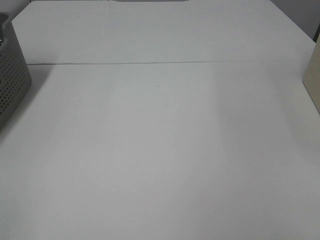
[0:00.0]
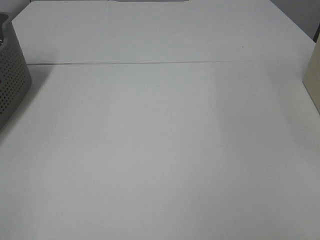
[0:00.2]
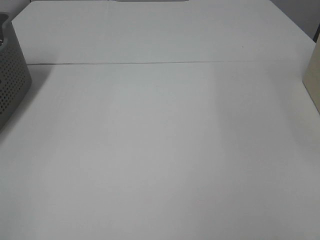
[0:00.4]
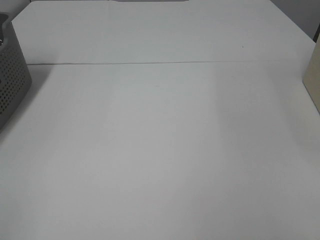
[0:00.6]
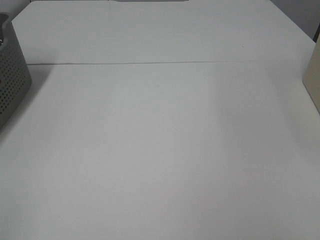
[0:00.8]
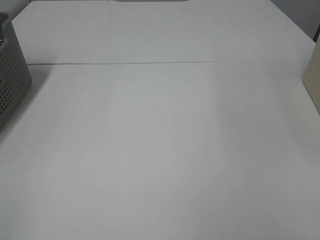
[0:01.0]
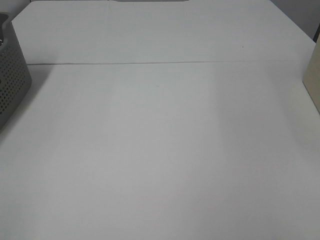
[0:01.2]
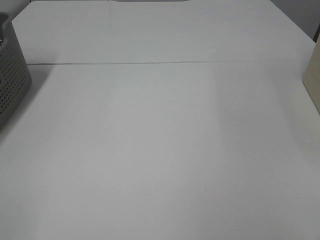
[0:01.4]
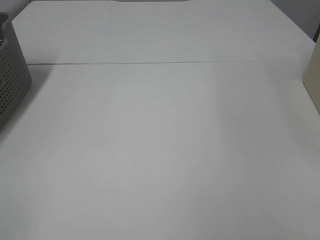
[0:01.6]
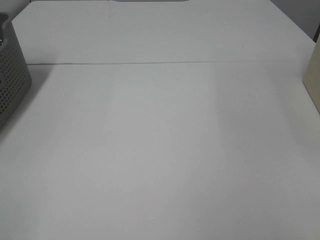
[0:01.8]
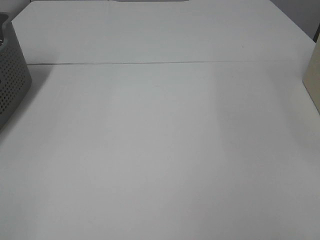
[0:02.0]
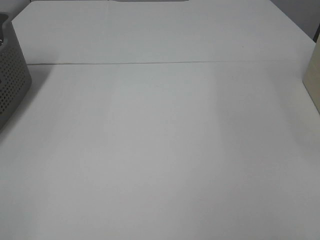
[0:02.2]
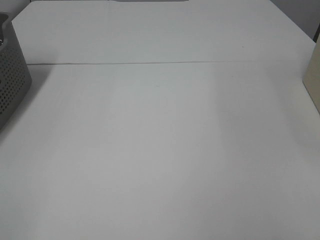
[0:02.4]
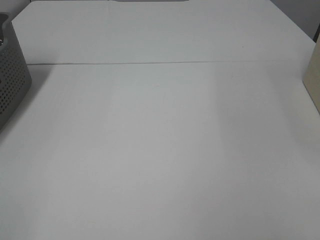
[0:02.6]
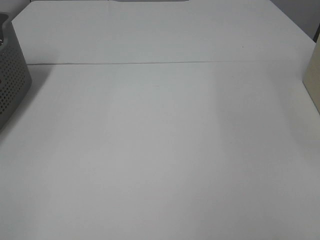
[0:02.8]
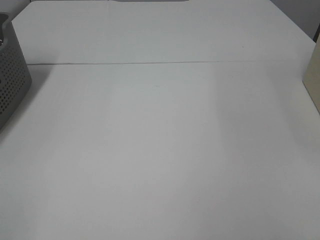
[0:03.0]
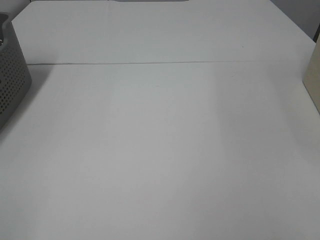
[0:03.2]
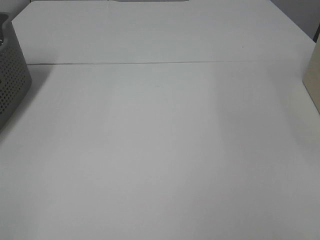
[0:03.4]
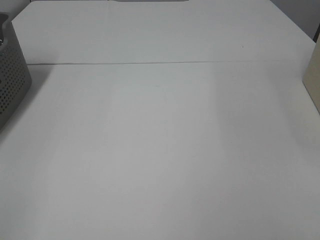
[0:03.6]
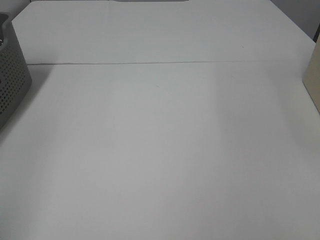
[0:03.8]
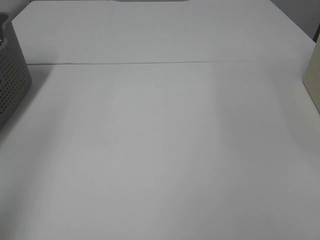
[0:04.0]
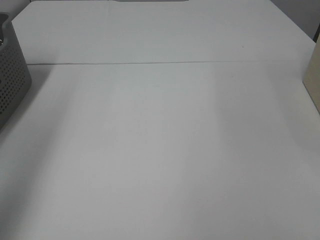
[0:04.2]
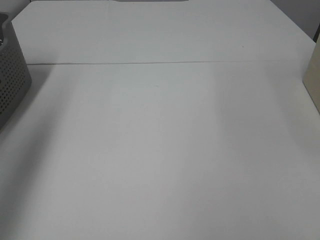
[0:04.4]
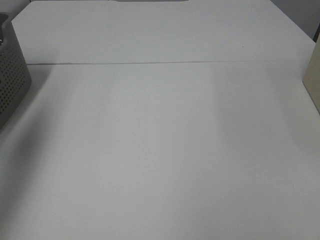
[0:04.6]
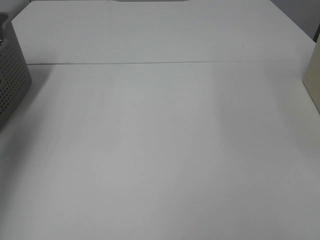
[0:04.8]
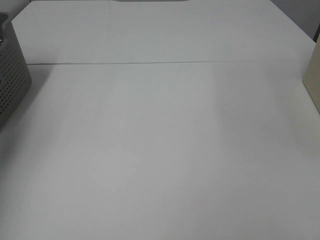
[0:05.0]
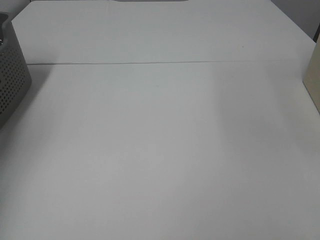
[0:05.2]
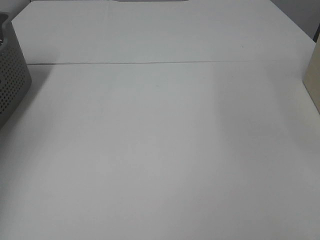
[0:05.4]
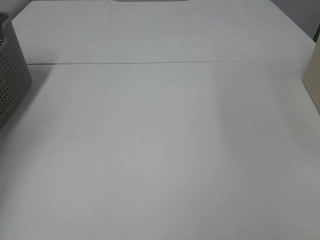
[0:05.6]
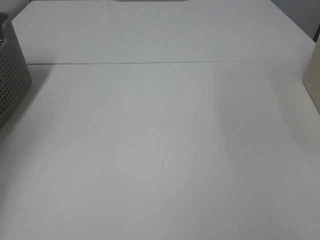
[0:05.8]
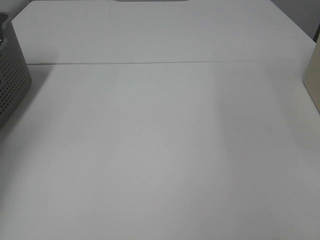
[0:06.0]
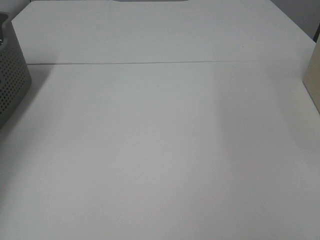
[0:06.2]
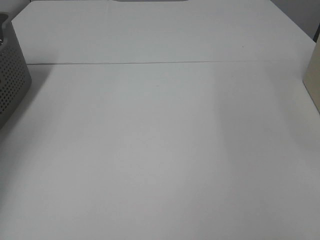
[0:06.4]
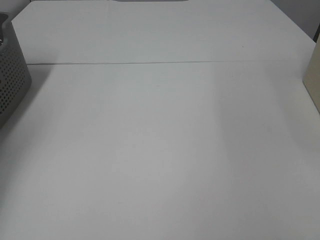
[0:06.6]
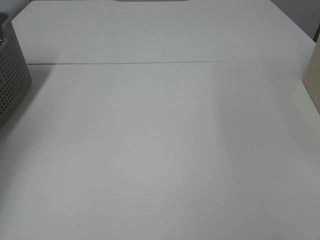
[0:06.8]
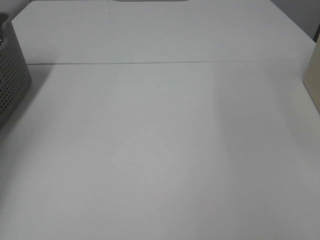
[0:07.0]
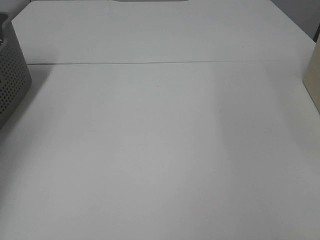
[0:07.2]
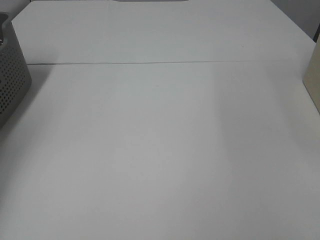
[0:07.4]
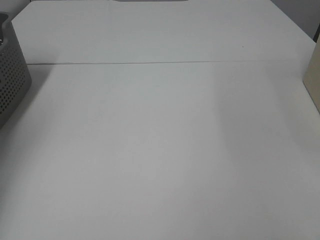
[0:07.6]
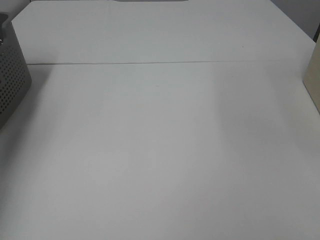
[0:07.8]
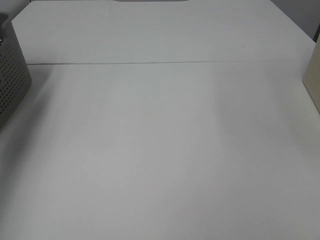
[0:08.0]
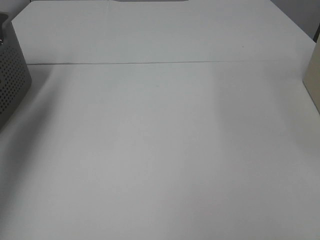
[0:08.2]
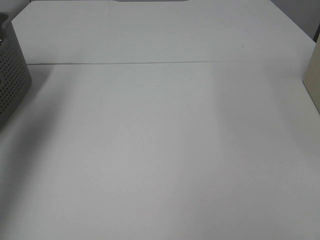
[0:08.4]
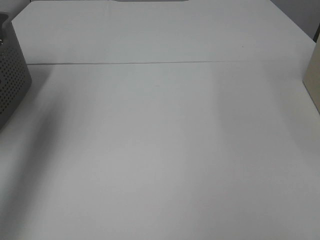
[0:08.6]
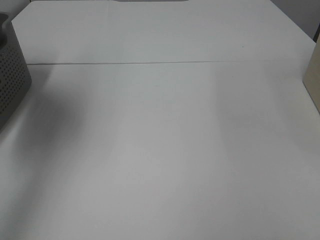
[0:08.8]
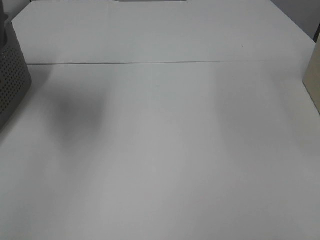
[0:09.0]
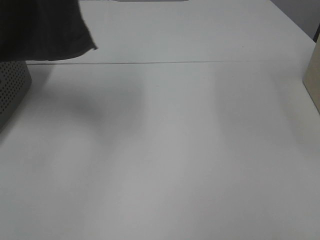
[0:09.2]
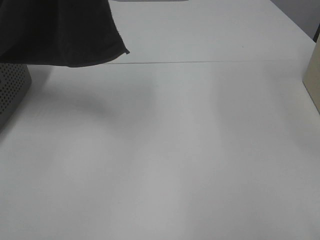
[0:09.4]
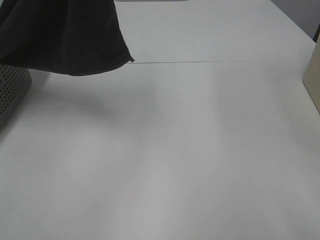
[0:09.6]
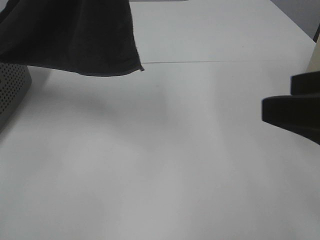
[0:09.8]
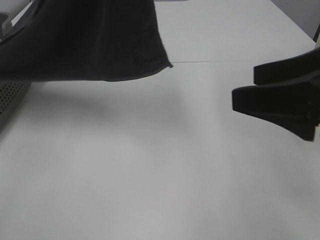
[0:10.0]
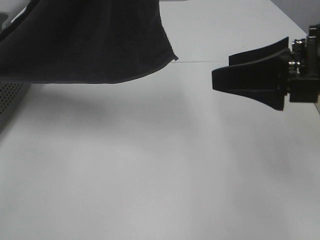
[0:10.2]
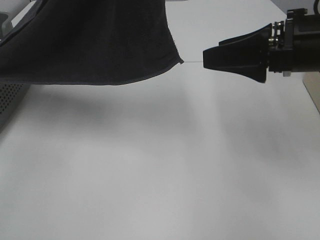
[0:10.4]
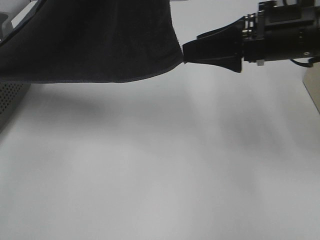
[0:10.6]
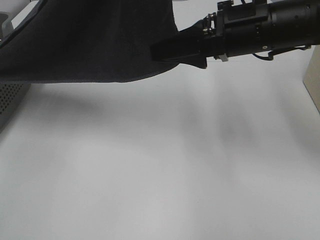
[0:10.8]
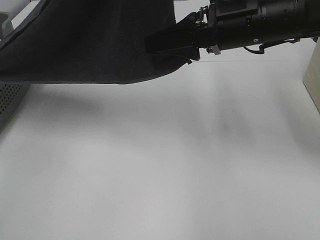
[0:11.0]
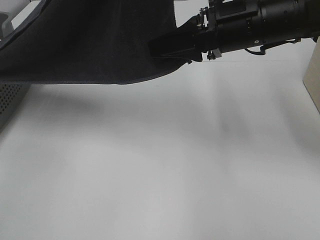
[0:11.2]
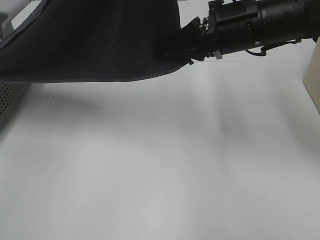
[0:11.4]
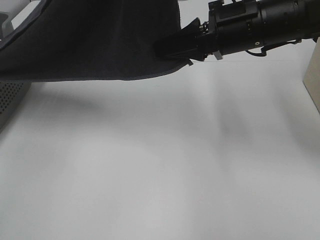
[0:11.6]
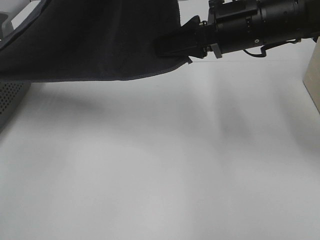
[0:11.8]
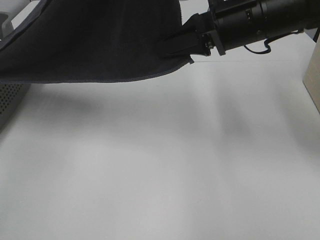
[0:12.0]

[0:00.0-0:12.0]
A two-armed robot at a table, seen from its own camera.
Task of the whole recording: Remove the towel and place it.
0:00.0 to 0:03.0: Both grippers stay put.
0:03.0 to 0:04.4: The left gripper moves forward and upward, some 25 cm.
0:04.4 to 0:06.0: The left gripper goes about 30 cm downward, forward and to the left.
0:07.6 to 0:09.0: The left gripper heads upward, to the right and backward, covering some 40 cm.
0:09.0 to 0:10.4: The right gripper moves forward, about 25 cm. The left gripper moves to the right, approximately 15 cm.
0:10.4 to 0:12.0: The right gripper moves forward and to the left, roughly 10 cm, and closes up.

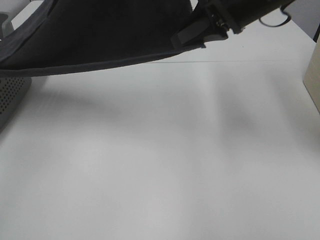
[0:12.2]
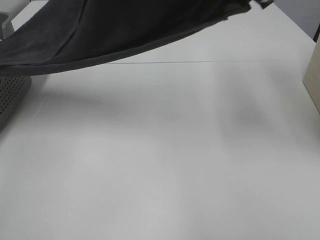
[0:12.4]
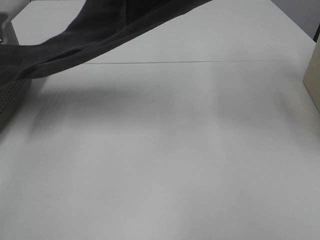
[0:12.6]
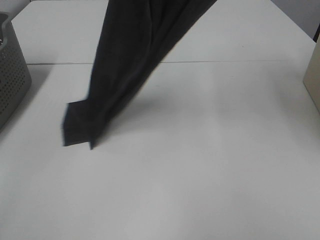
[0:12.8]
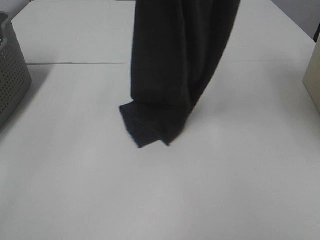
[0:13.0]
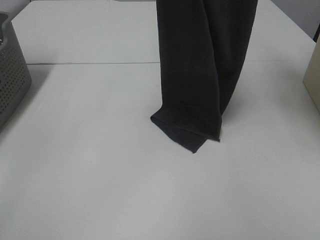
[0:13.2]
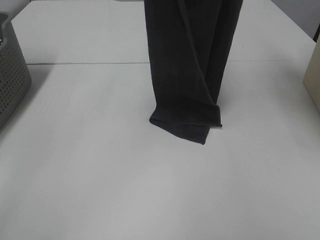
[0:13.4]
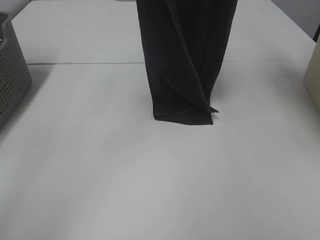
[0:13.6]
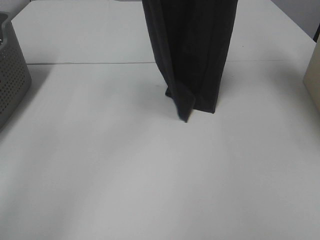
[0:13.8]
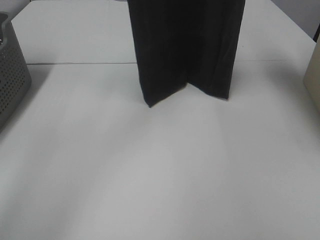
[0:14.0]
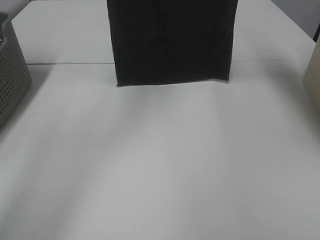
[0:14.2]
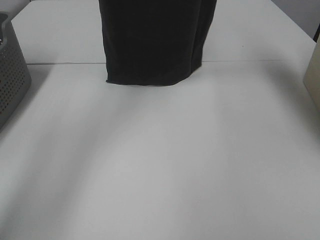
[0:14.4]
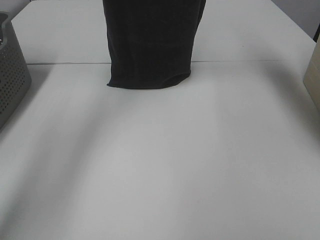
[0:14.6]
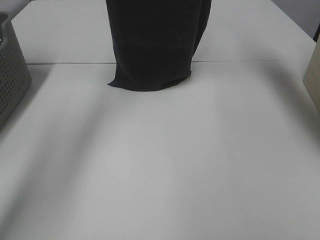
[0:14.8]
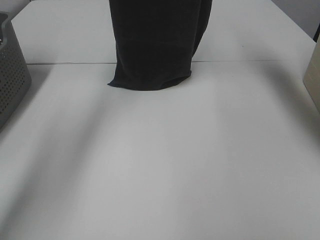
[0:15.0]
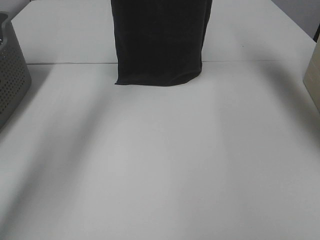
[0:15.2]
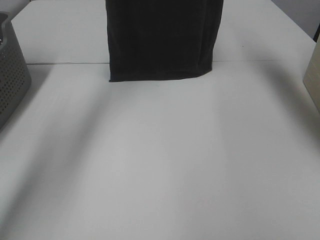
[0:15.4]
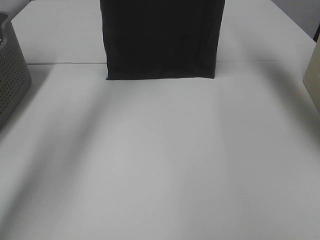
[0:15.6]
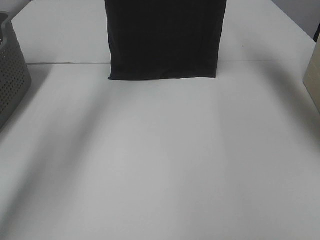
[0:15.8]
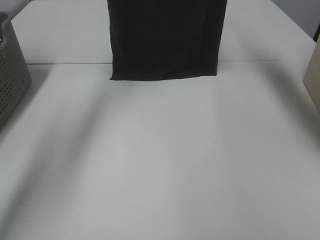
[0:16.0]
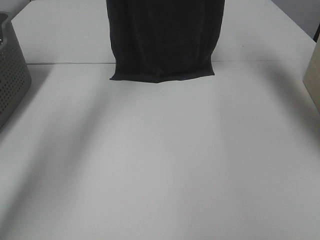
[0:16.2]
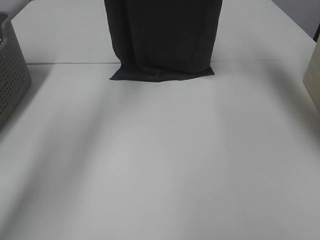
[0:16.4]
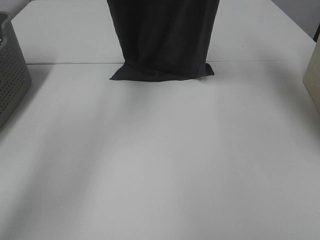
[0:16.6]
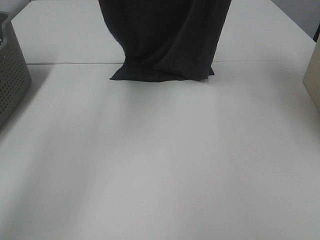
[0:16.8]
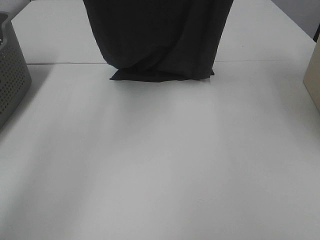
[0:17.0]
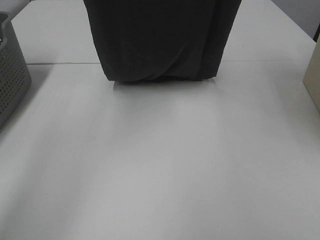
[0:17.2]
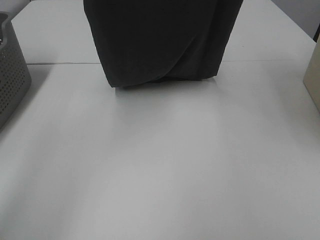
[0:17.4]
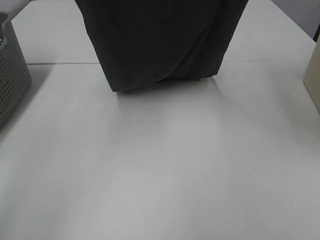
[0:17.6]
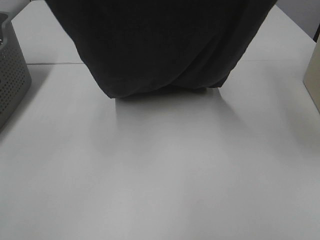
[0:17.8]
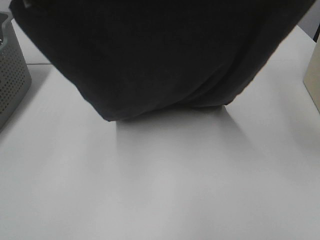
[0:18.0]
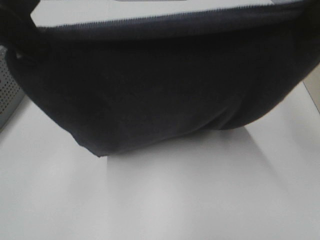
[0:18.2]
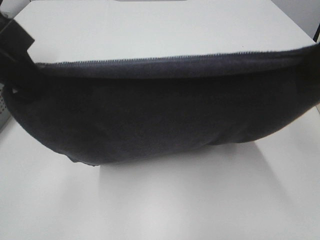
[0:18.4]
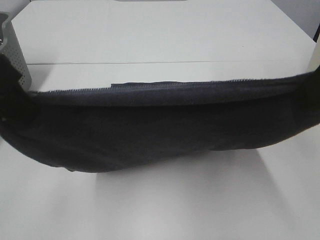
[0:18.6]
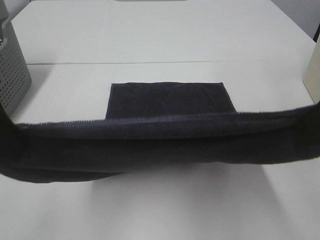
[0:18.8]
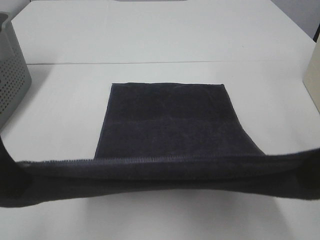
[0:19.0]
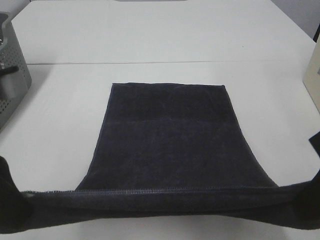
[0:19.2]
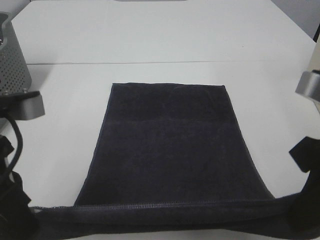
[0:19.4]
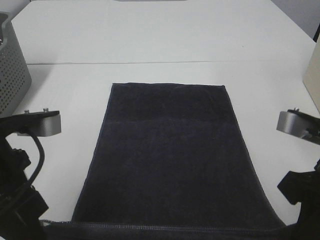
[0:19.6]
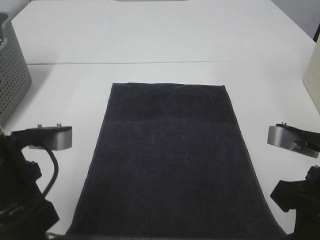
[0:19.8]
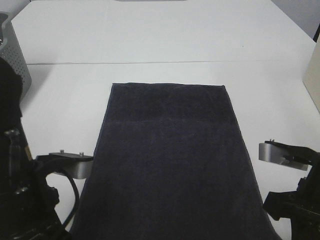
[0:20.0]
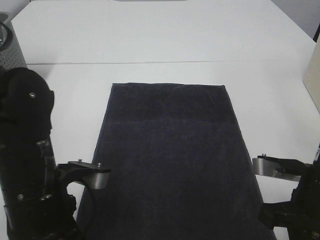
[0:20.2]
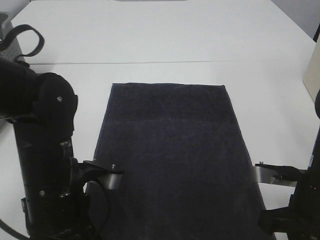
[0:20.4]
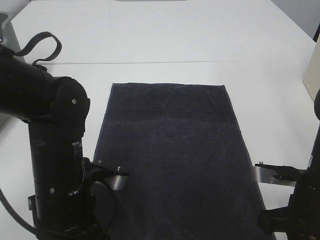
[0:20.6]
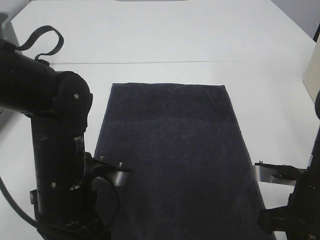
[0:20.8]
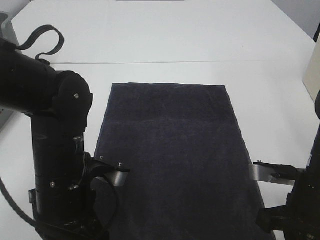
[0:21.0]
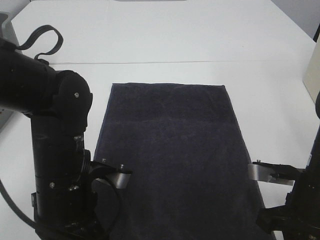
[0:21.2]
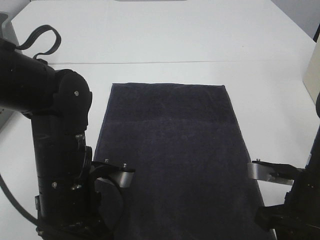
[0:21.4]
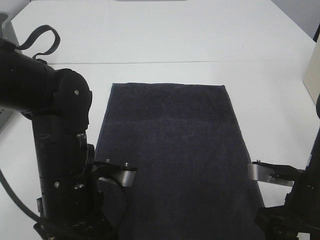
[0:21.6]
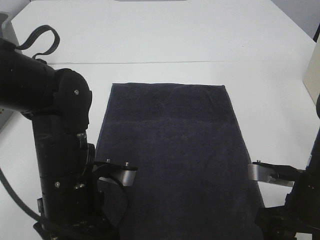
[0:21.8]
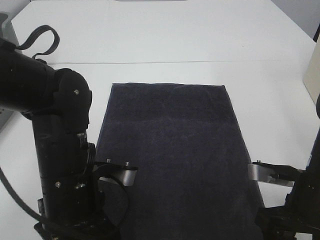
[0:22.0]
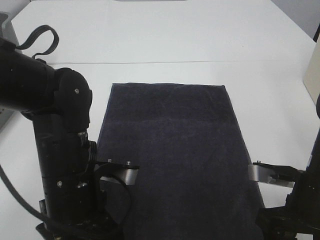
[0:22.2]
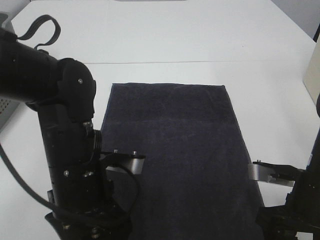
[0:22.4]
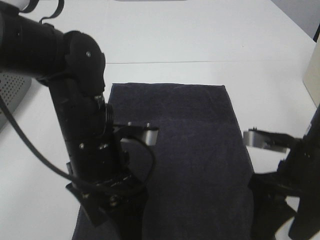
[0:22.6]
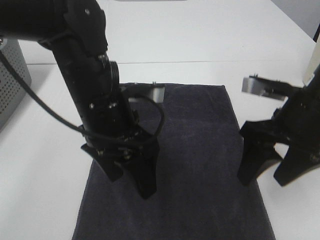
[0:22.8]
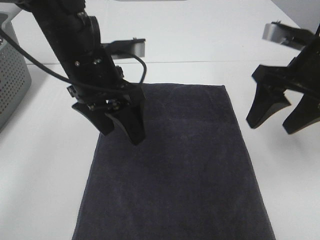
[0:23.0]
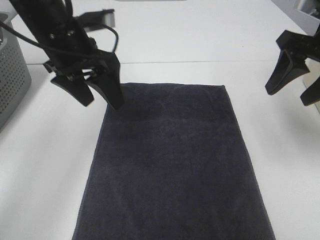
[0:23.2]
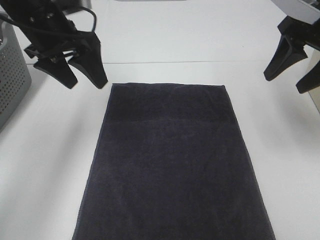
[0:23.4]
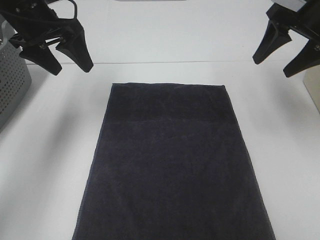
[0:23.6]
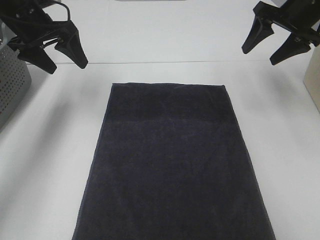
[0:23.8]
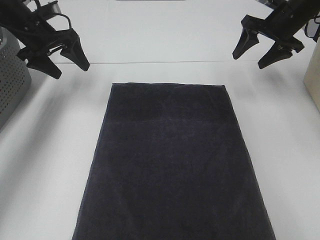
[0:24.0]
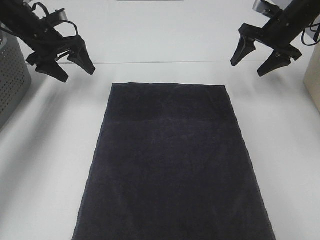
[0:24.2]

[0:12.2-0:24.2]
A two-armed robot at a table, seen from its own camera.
Task of the whole recording: Remove the towel and place it.
Step, 0:12.6 to 0:17.4: Left hand: spread the grey towel flat on the table.
Step, 0:12.6 to 0:17.4: Right hand: spread the grey towel flat on the table.
0:12.2 to 0:13.8: The right gripper shifts roughly 20 cm upward; the left gripper travels forward by about 10 cm.
0:13.8 to 0:15.2: The left gripper travels forward by about 10 cm; the right gripper moves forward, about 5 cm.
0:16.6 to 0:18.2: Both grippers travel together backward, roughly 25 cm.
0:18.2 to 0:19.8: The grippers both shift downward by roughly 20 cm.
0:19.8 to 0:21.2: The left gripper travels downward and to the right by about 10 cm, while the right gripper heads downward, covering approximately 5 cm.
0:21.2 to 0:22.6: The left gripper shifts by approximately 5 cm, and opens up. The right gripper opens up.
0:22.6 to 0:24.2: The right gripper travels forward by approximately 30 cm; the left gripper is displaced forward and to the left by some 35 cm.
